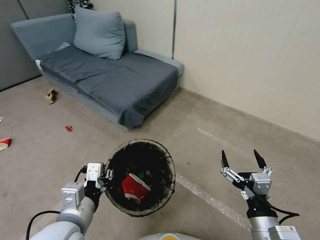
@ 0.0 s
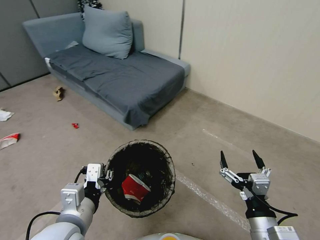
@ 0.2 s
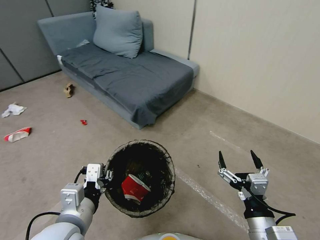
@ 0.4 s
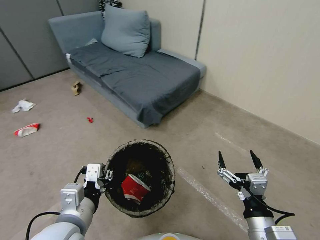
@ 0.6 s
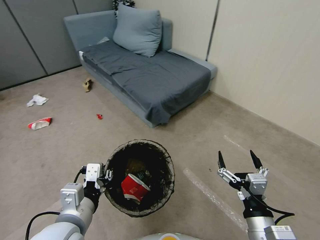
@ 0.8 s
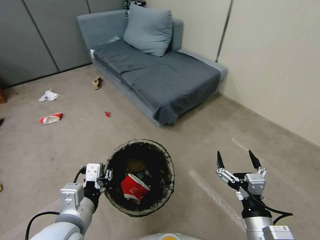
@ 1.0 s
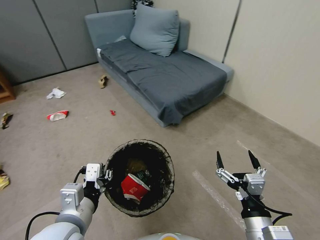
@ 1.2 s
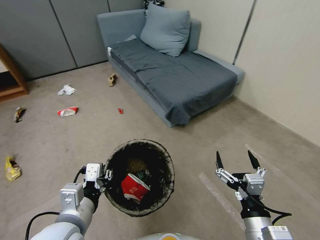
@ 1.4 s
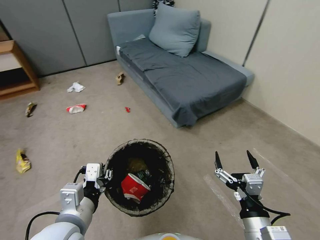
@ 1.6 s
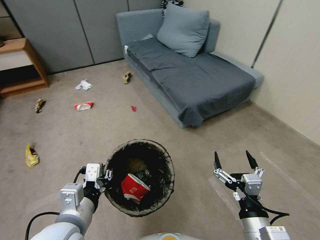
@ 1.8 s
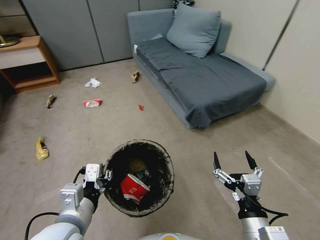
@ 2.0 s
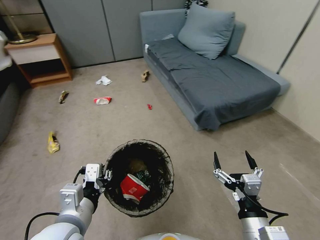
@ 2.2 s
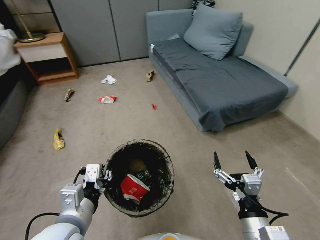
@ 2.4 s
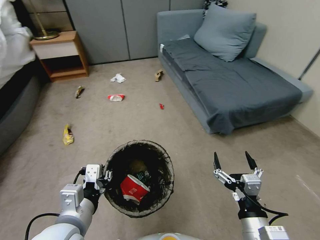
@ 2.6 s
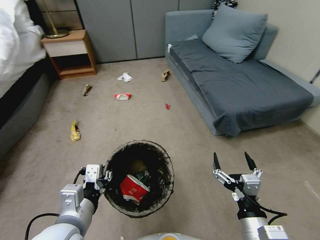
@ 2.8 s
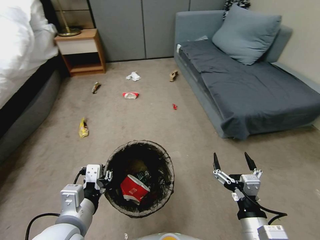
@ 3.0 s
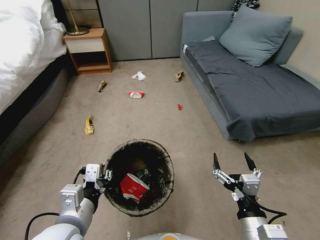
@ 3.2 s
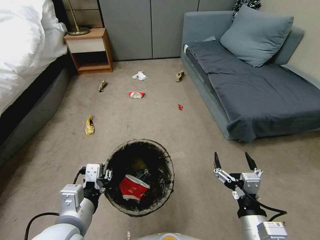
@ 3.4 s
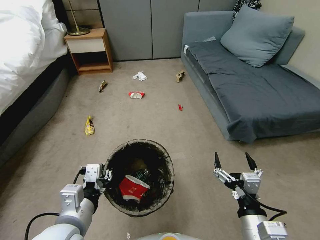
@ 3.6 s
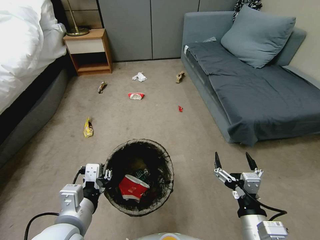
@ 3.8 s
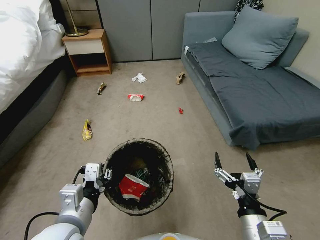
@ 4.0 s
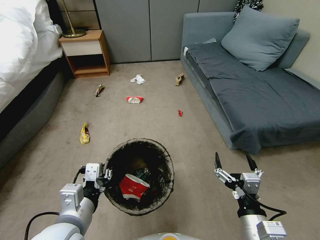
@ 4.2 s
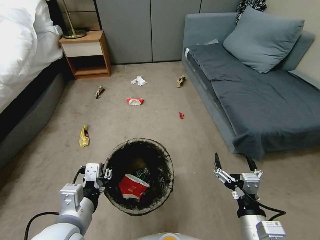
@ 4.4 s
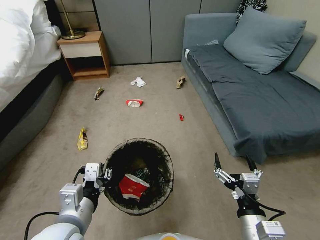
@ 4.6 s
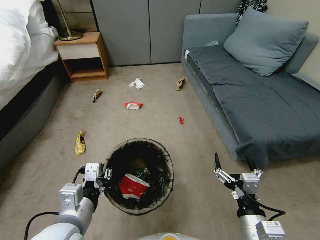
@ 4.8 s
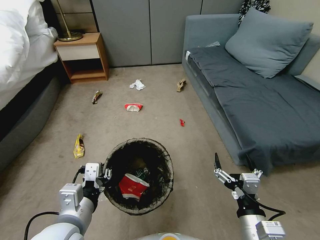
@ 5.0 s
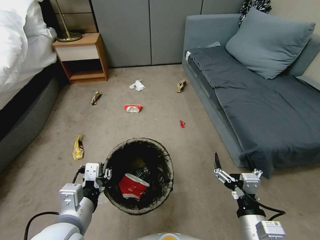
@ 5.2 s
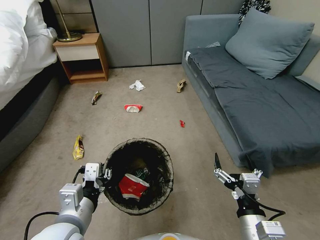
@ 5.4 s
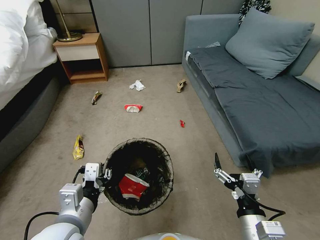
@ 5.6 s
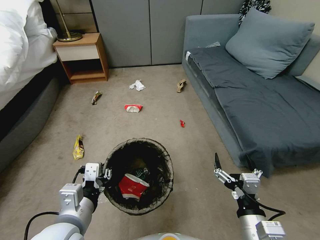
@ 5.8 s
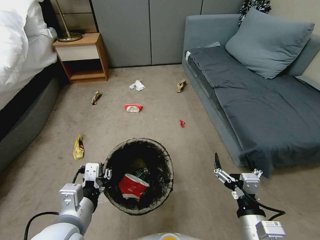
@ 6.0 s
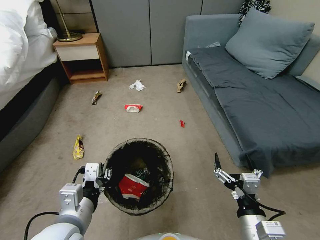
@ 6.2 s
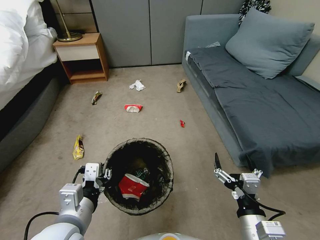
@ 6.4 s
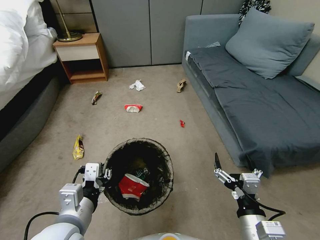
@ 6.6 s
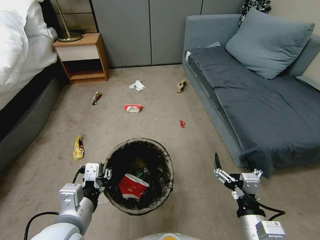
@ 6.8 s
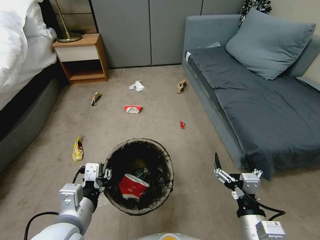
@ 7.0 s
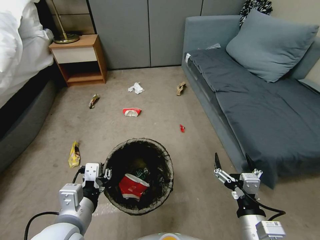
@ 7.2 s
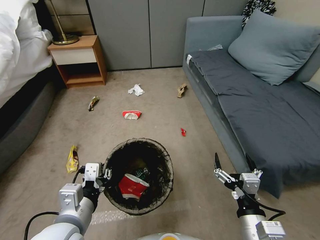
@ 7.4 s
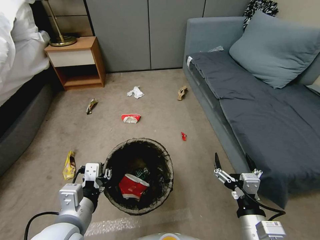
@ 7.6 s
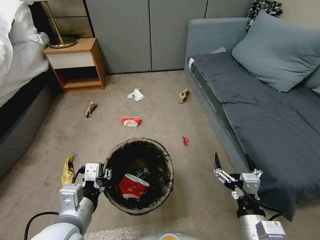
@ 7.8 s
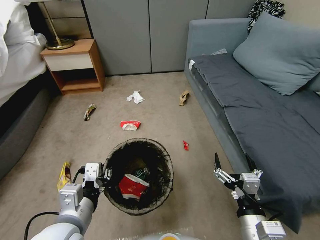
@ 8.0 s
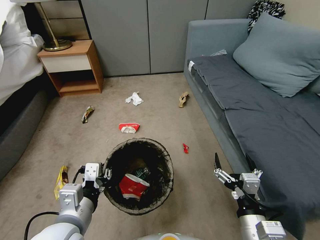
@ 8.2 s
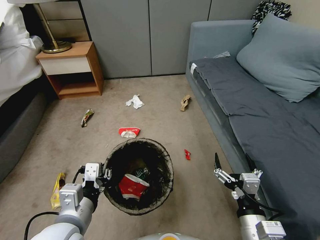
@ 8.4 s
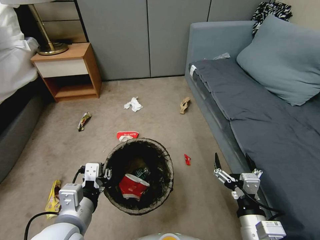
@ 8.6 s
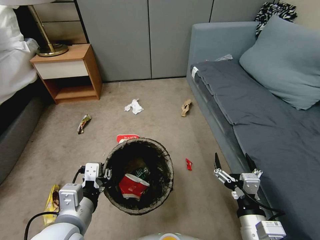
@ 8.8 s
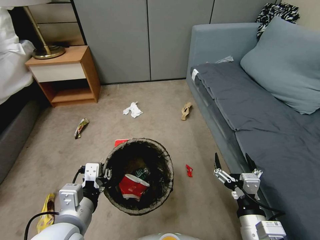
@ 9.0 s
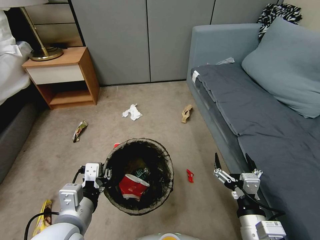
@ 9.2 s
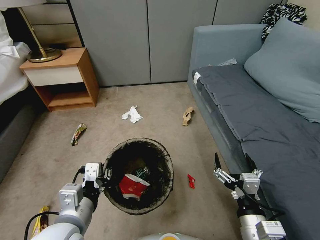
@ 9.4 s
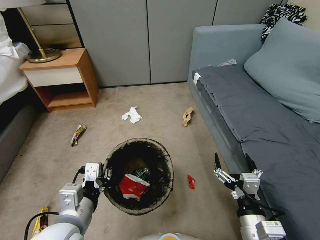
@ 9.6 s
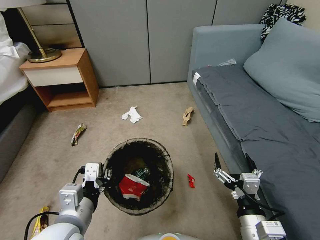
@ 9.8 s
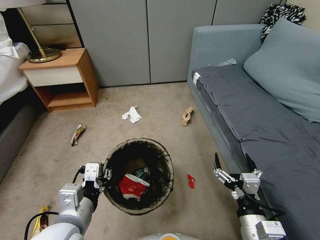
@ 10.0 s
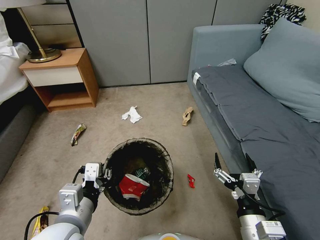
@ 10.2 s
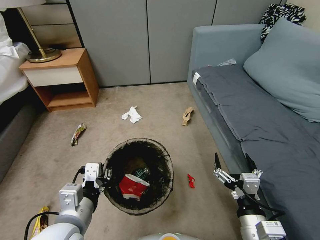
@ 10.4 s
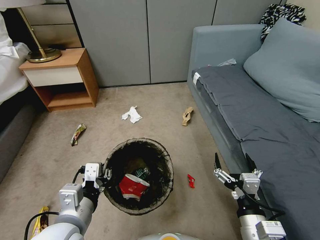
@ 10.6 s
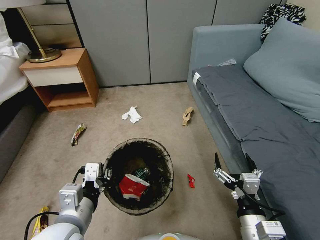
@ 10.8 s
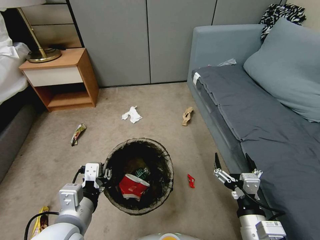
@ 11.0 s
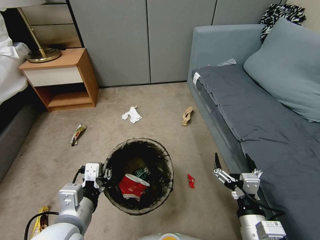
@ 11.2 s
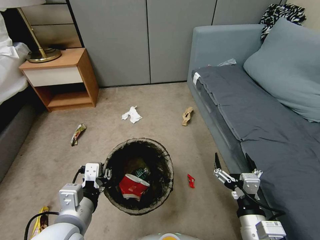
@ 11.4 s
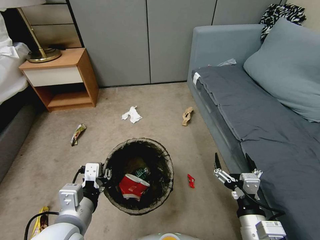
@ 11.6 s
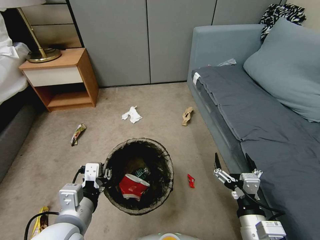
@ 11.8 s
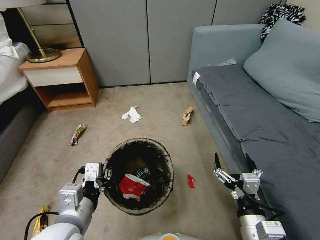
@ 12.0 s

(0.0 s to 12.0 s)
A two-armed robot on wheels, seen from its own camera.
Task of the whole recording: Pick up the trash bin, then pick up the garbage from the floor and place it into the trash bin.
4.4 s - 7.6 s: The two grippers keep their place.
9.0 s - 12.0 s: The two grippers keep their place.

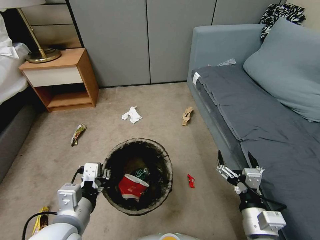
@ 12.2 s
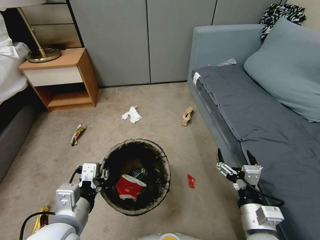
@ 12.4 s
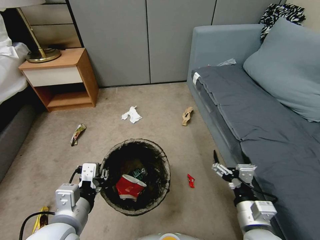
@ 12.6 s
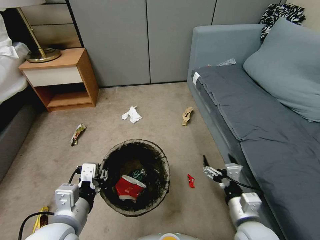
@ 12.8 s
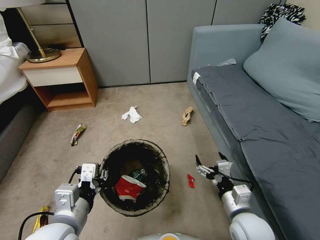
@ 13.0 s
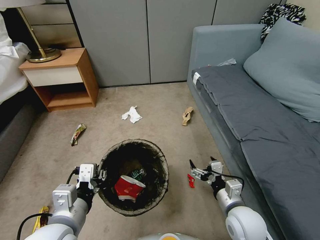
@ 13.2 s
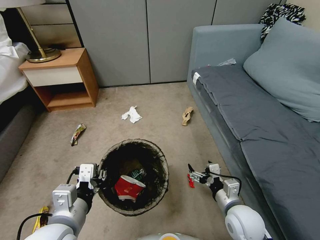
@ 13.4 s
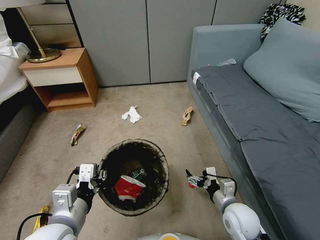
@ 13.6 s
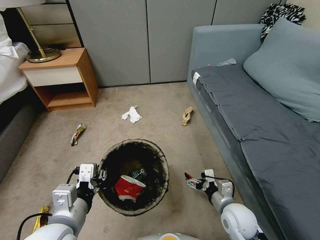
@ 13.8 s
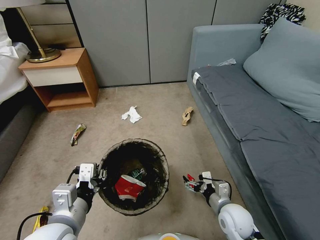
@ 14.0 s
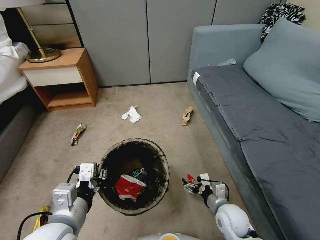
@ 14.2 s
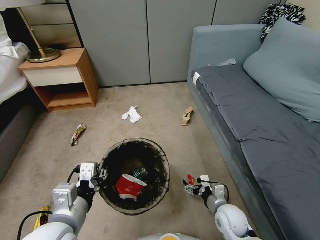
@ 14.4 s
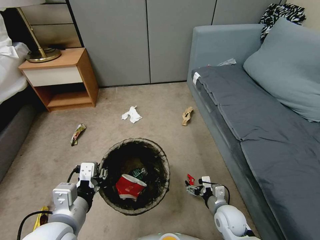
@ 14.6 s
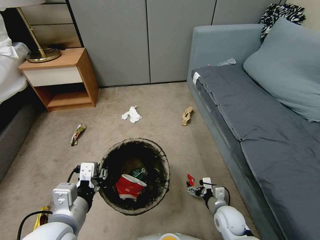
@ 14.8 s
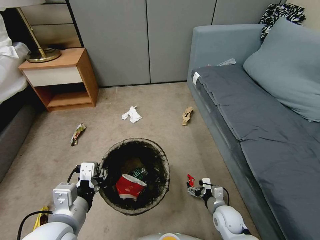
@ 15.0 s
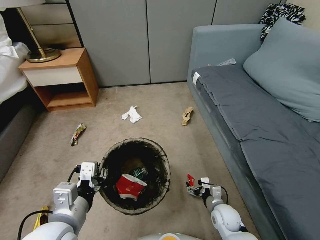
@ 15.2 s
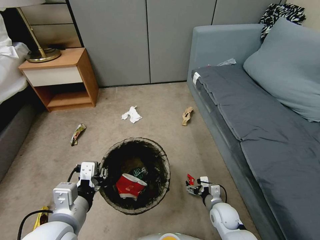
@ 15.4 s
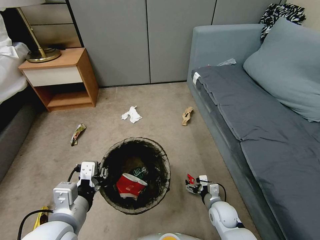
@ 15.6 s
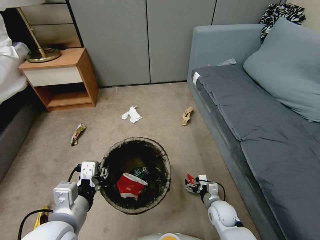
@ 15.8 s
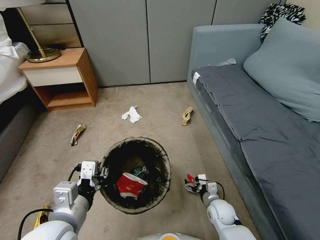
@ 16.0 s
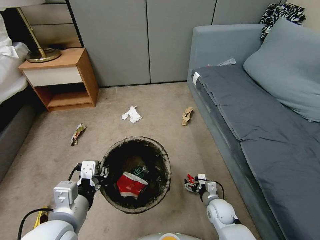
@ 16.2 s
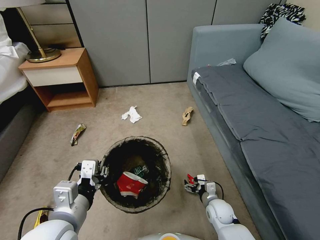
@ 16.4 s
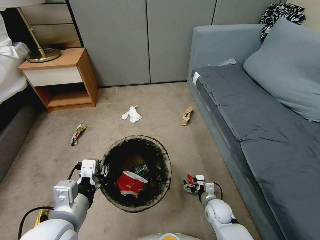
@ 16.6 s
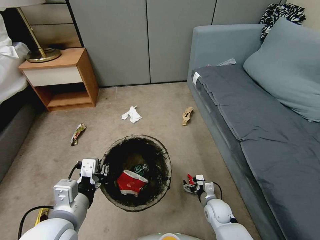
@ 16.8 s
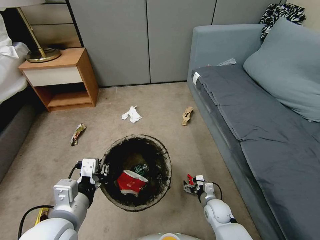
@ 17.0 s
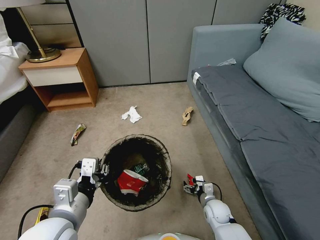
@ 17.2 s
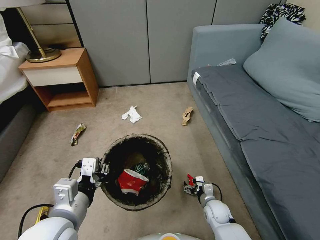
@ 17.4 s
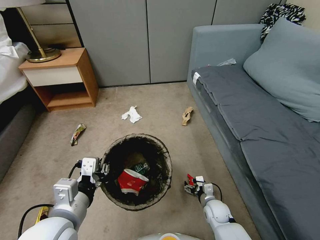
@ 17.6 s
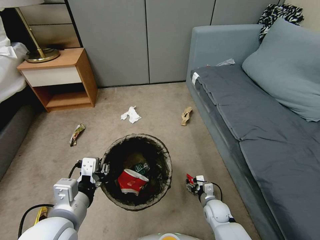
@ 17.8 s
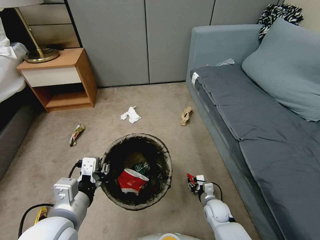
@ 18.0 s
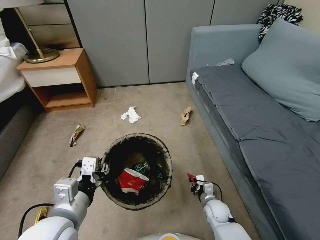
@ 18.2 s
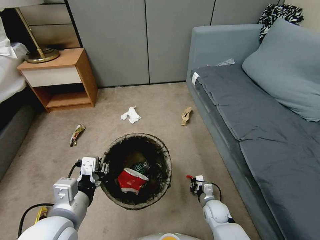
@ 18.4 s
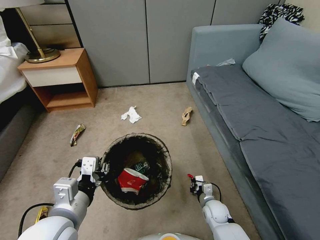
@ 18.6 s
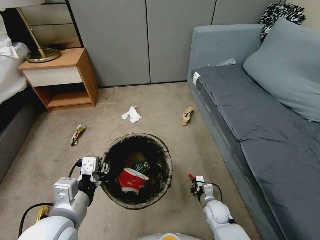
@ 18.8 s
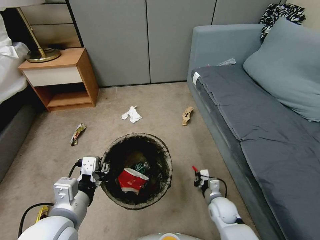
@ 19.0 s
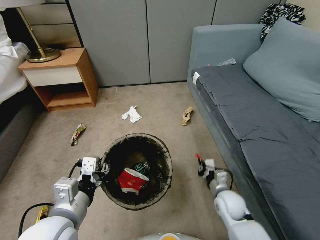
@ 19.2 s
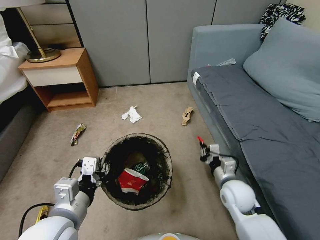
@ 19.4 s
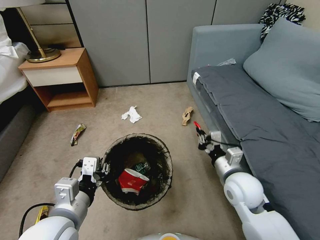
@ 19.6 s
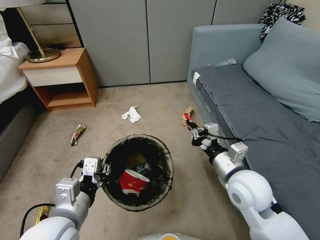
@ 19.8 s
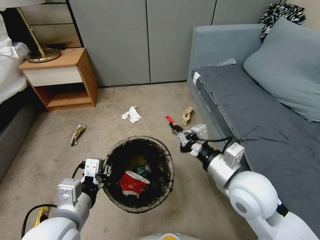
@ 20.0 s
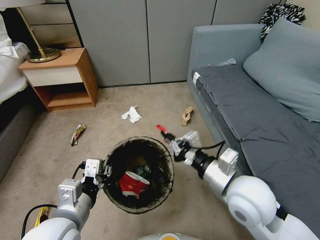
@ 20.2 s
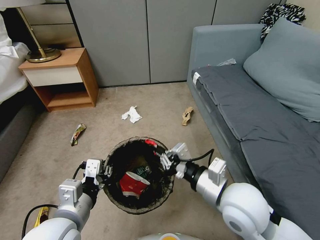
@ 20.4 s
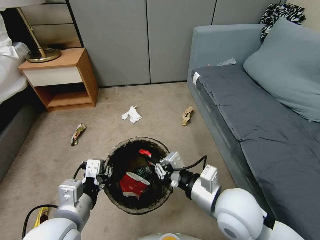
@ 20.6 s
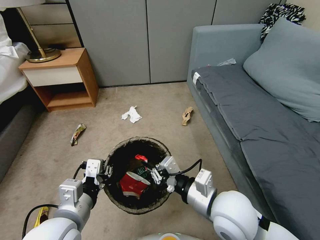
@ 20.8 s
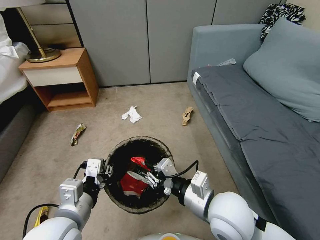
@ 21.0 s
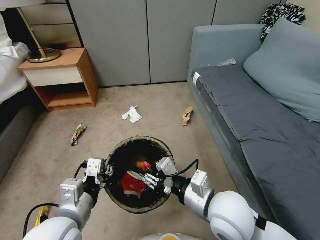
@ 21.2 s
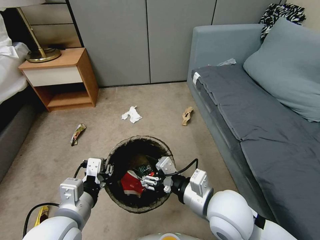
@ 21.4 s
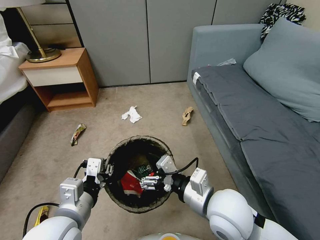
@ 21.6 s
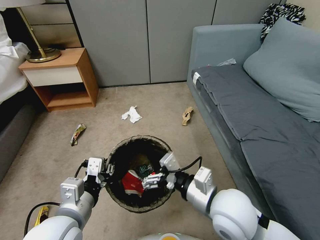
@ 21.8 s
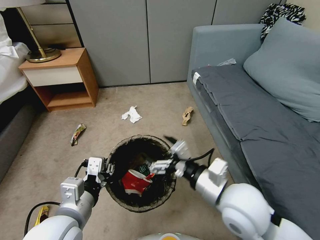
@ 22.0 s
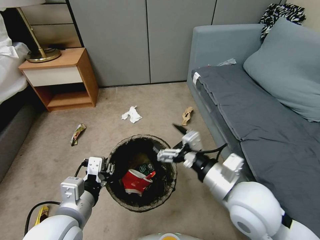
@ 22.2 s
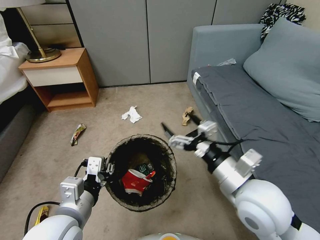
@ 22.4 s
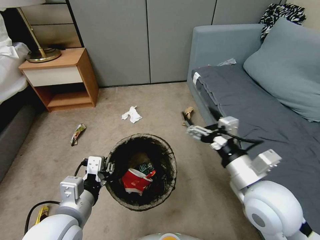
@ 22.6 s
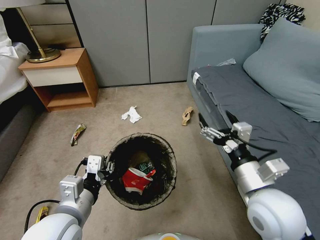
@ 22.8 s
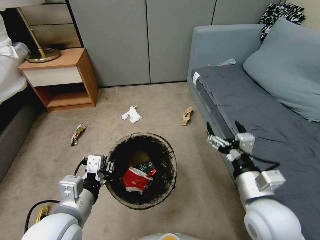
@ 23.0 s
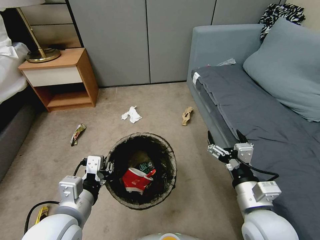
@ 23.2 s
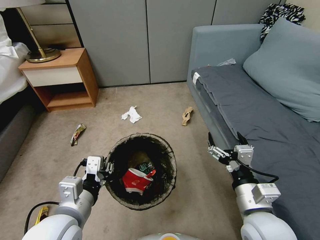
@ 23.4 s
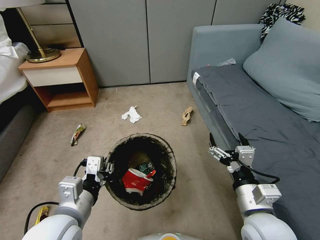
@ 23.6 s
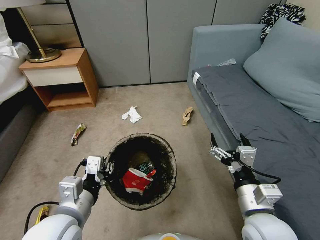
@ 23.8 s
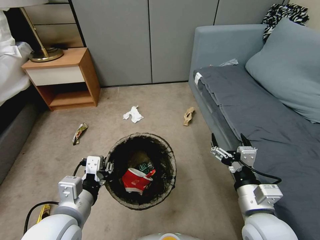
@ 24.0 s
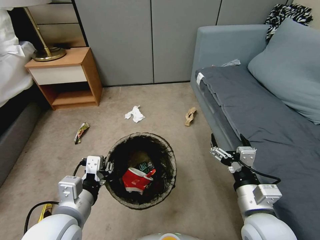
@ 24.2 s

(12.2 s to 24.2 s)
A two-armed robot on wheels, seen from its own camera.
Task of the whole recording: Pick up the trash bin, then pick up the garbage from the floor and place it into the trash bin.
12.2 s - 13.8 s: The right gripper shifts roughly 15 cm downward and forward.
13.8 s - 15.2 s: The right gripper heads downward, covering some 10 cm.
15.2 s - 16.6 s: There are only small adjustments of the grippers.
16.6 s - 18.2 s: The right gripper closes up.
18.2 s - 19.8 s: The right gripper heads upward, covering roughly 35 cm.
19.8 s - 21.2 s: The right gripper is displaced to the left and backward by approximately 10 cm.
21.2 s - 22.6 s: The right gripper moves to the right, approximately 10 cm, and opens.
22.6 s - 24.2 s: The right gripper is displaced downward by roughly 10 cm.
